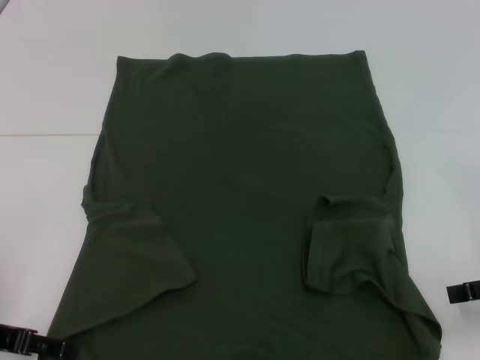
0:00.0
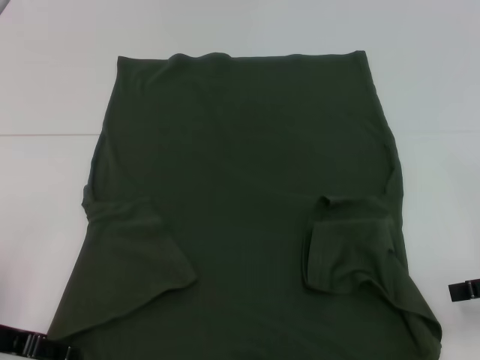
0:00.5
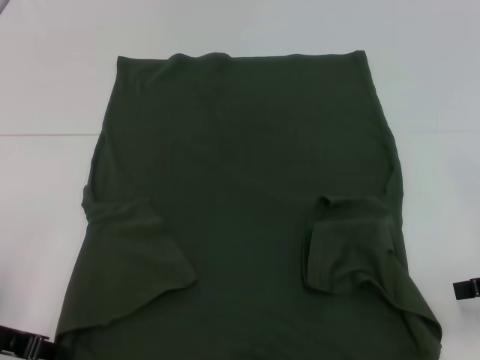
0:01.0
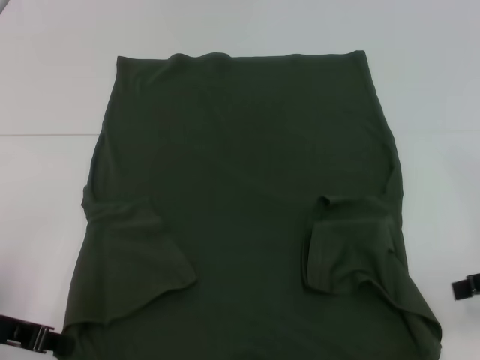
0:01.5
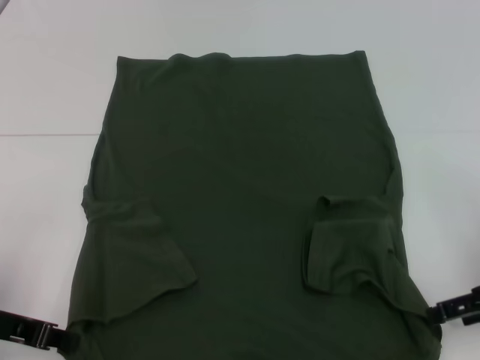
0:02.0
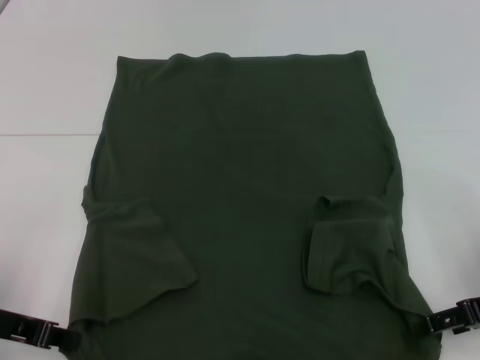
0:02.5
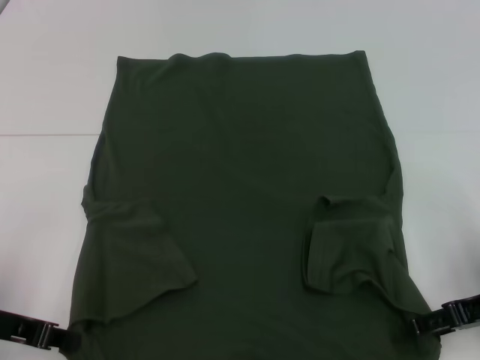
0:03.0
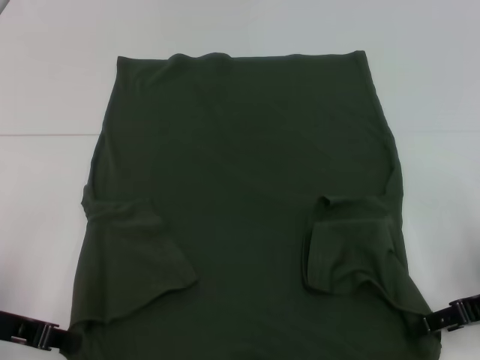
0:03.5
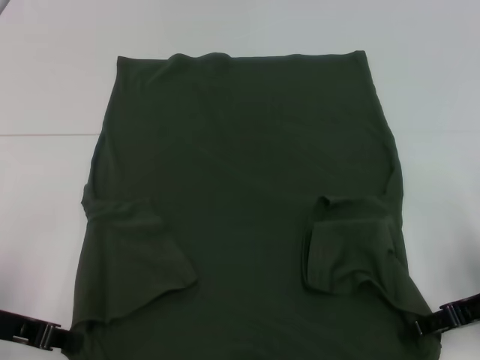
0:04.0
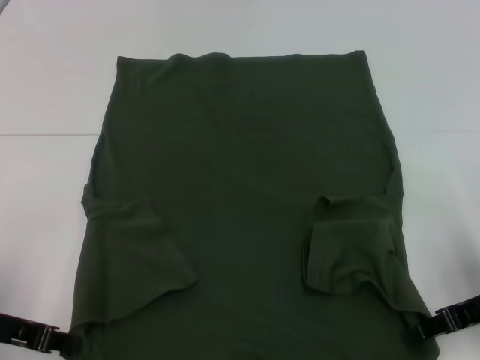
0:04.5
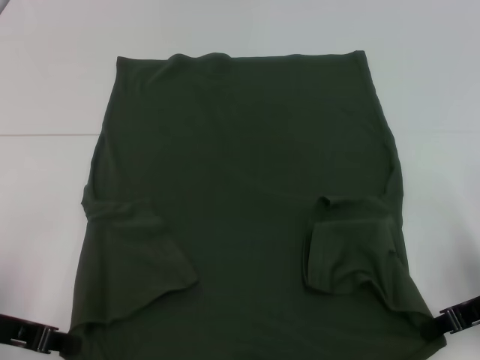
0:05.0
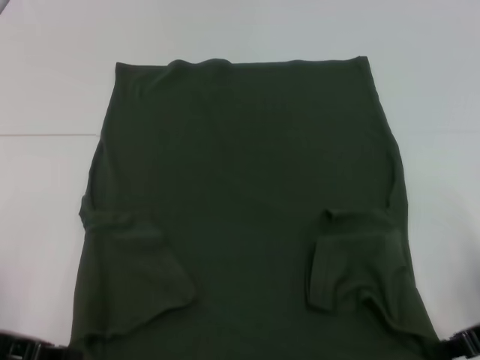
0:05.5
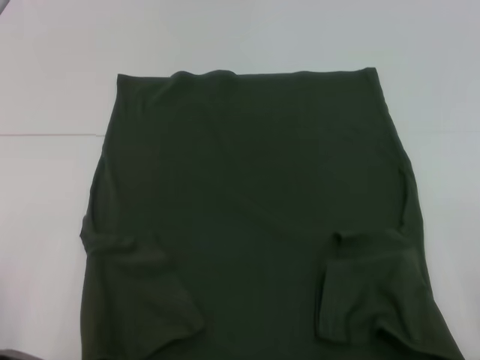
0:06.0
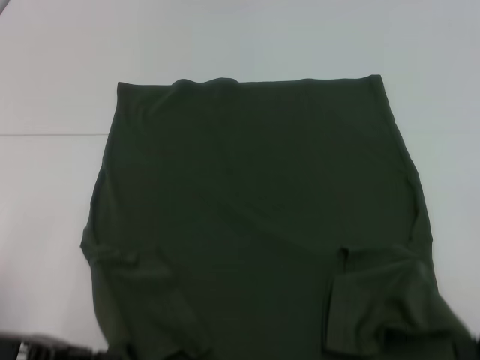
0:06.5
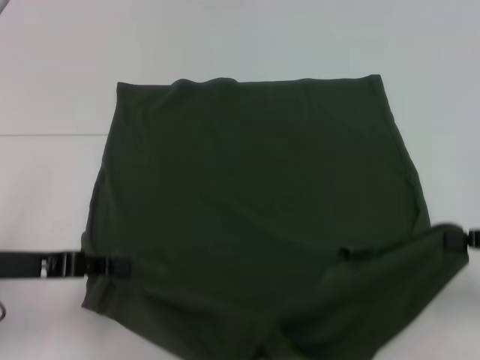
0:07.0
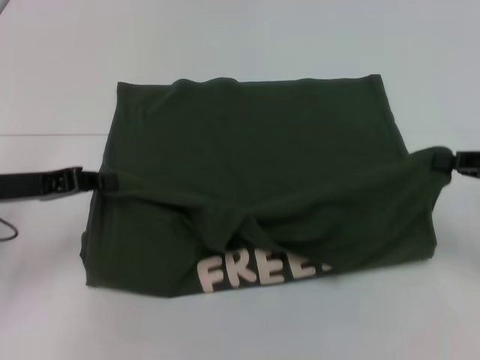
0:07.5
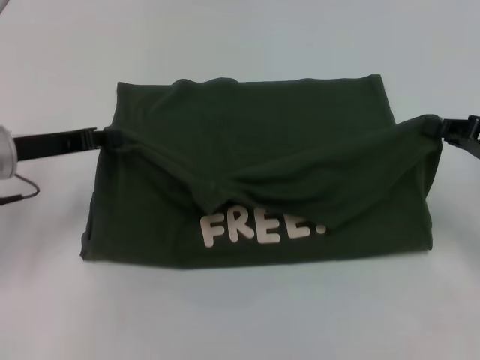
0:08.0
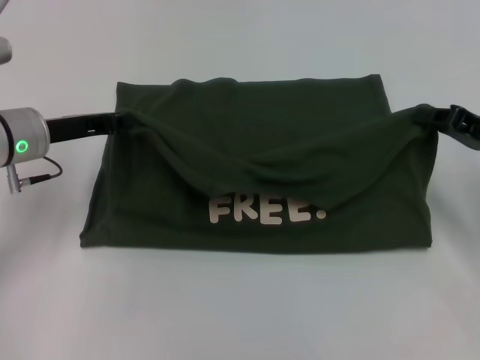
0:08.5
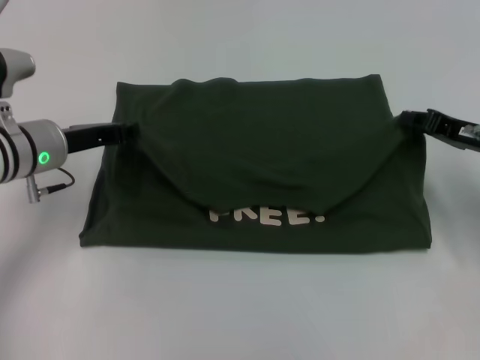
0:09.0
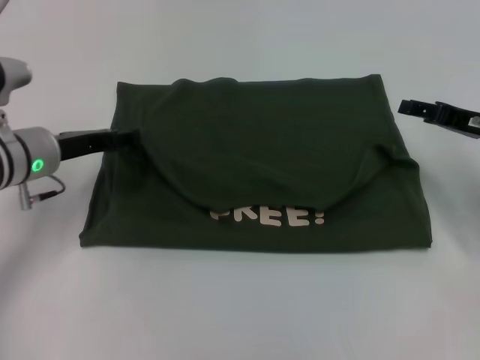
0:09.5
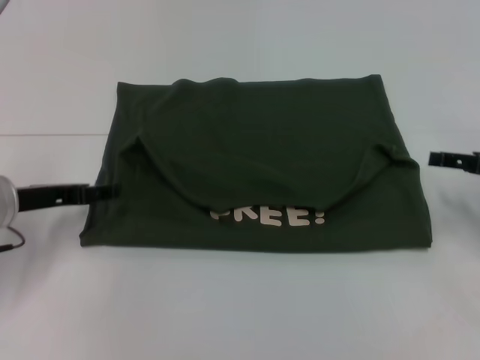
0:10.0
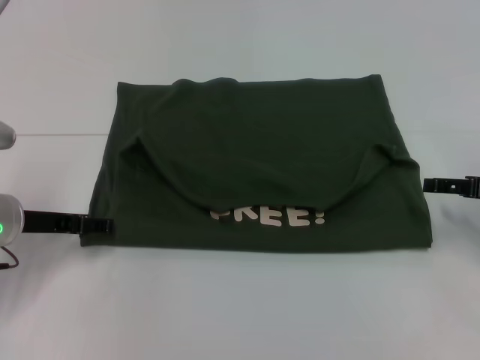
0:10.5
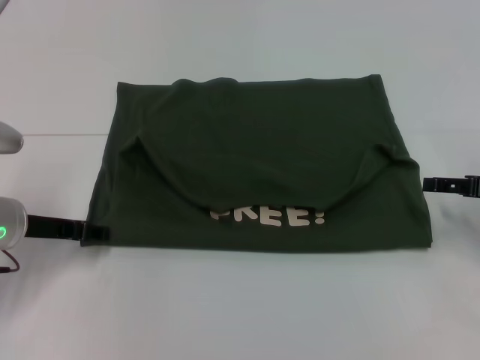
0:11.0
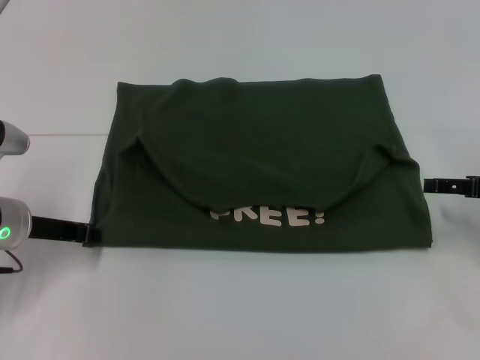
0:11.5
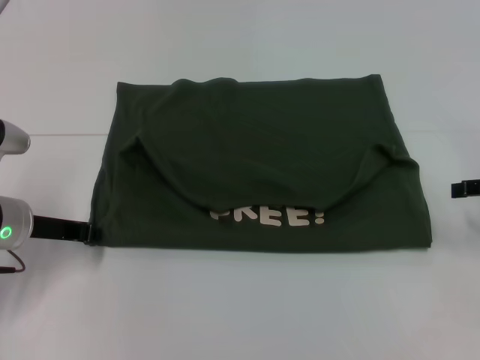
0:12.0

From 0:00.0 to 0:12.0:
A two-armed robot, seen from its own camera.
Step, from 0:01.5 to 0:05.0: Grab the bottom right corner with your right hand.
Step, from 0:05.5 to 0:09.0: Fold the clothes with your left hand.
Step, from 0:05.5 to 0:09.0: Fold the clothes with your right hand.
From 0:00.0 to 0:02.0: The left gripper closes.
From 0:02.0 to 0:04.0: The grippers make only small movements.
From 0:04.0 to 0:06.0: The right gripper travels backward by approximately 5 cm, and closes.
From 0:06.0 to 0:08.0: The two grippers go approximately 15 cm forward.
From 0:08.0 to 0:10.0: The left gripper opens its fingers, while the right gripper opens.
From 0:10.0 to 0:12.0: The left gripper closes.

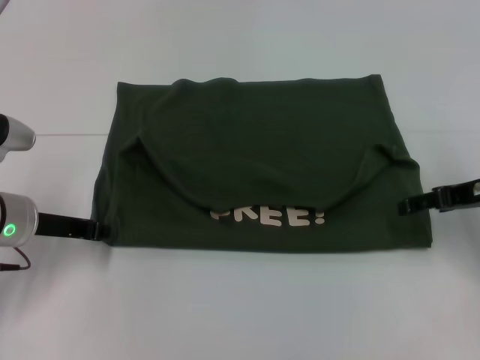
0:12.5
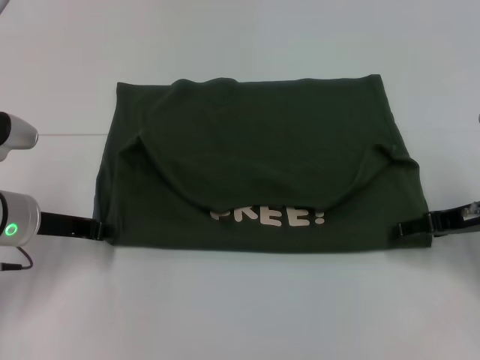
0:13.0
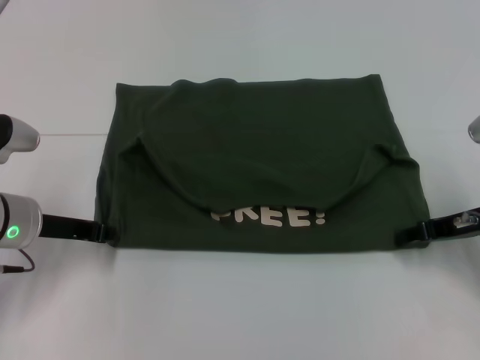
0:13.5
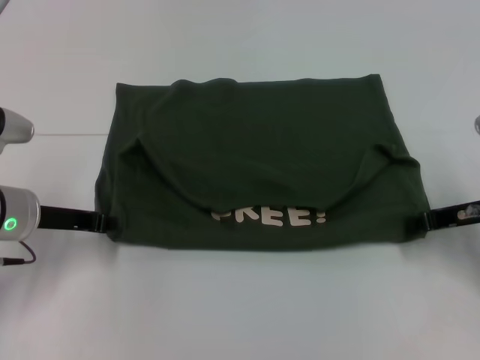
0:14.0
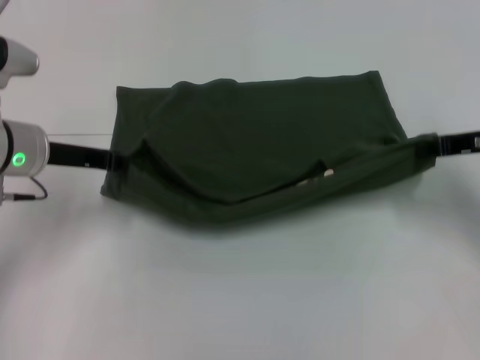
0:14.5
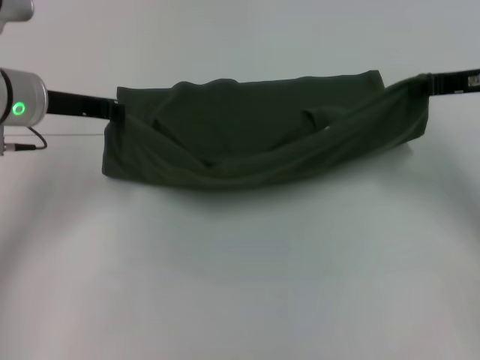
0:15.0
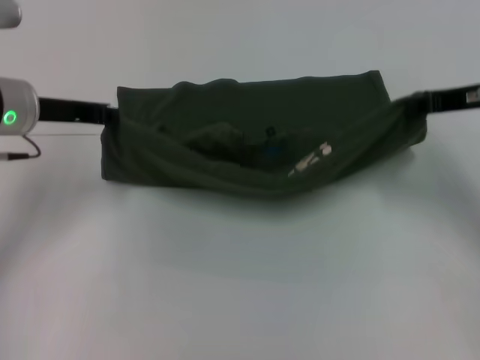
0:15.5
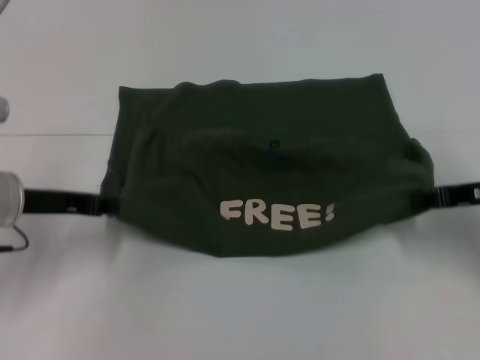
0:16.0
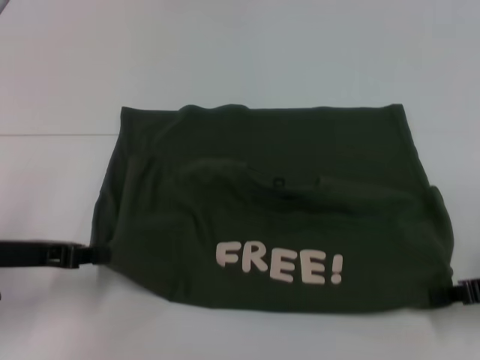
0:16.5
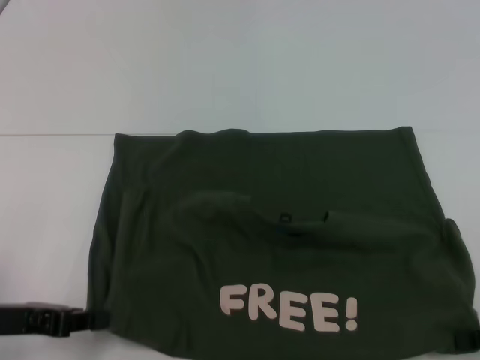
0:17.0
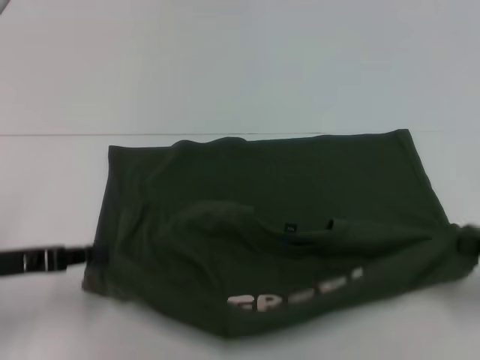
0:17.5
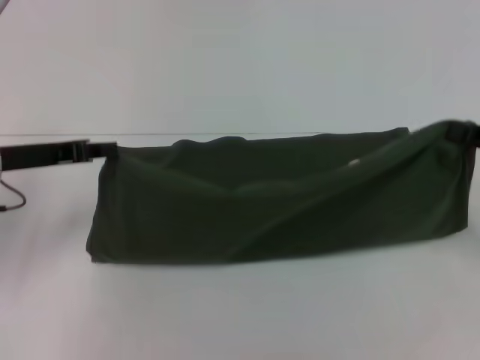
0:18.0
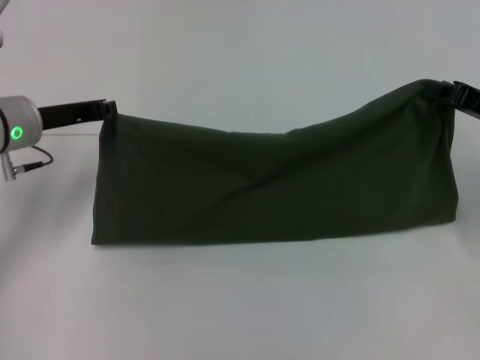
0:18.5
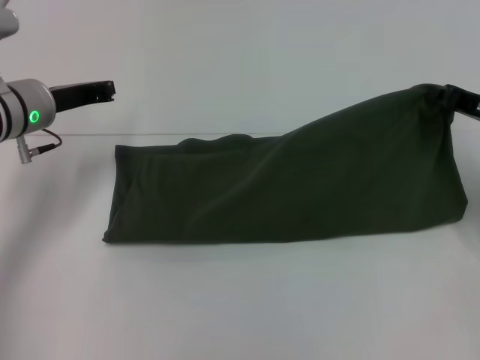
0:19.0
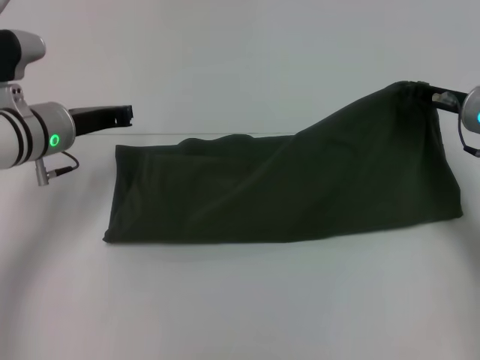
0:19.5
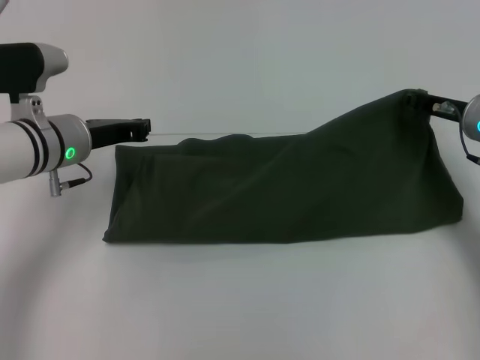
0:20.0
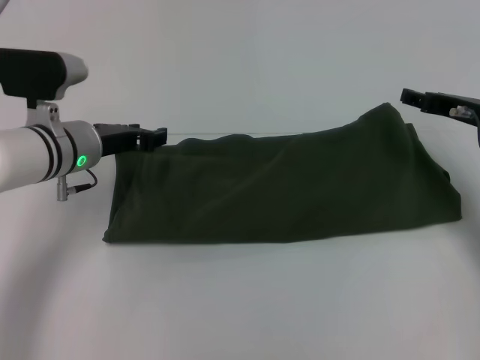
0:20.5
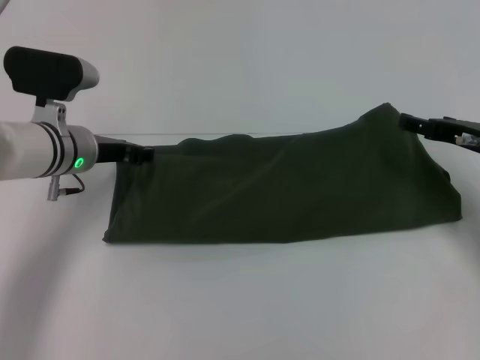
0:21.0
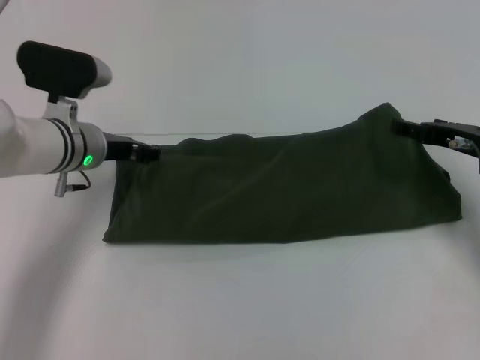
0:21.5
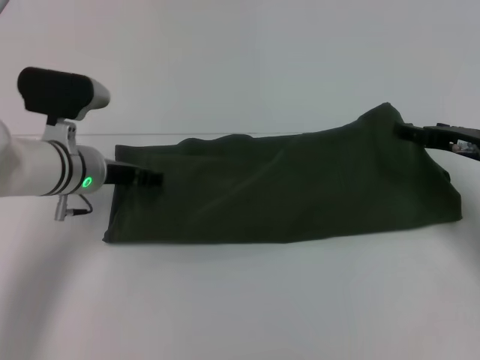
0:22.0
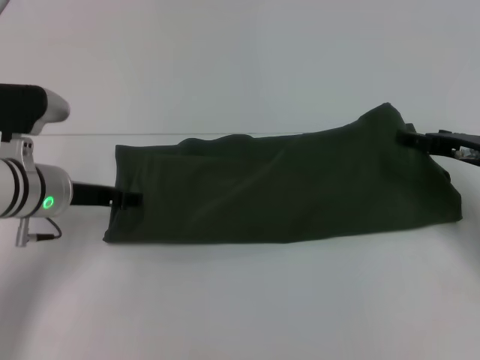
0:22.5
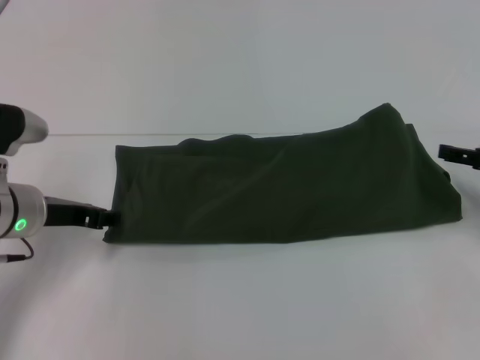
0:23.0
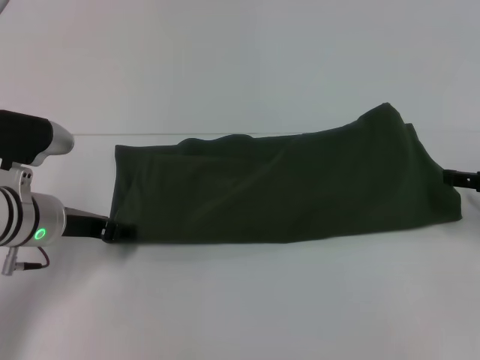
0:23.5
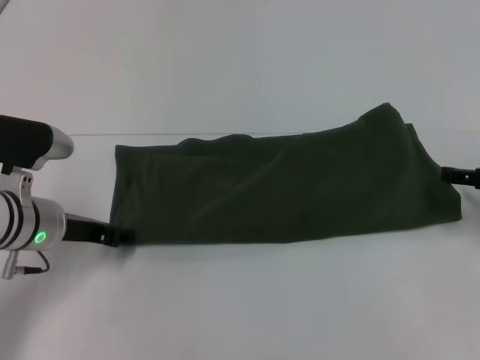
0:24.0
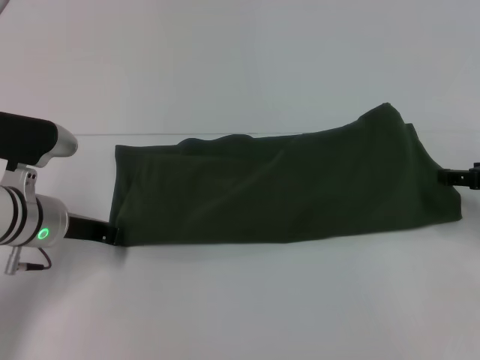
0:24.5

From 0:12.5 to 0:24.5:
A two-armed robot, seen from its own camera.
Step, from 0:12.5 to 0:17.0: Pull the clothes with your left hand.
Step, from 0:12.5 to 0:17.0: Pull the clothes with your right hand.
Step, from 0:17.5 to 0:18.5: Fold the clothes with your left hand.
Step, from 0:19.0 to 0:20.0: Fold the clothes with your right hand.
From 0:12.5 to 0:14.5: The right gripper closes up, while the left gripper goes about 5 cm upward.
From 0:14.5 to 0:16.5: The right gripper is displaced backward and downward by about 10 cm, while the left gripper travels backward and to the left by approximately 10 cm.
From 0:16.5 to 0:18.5: Both grippers travel together forward, approximately 10 cm.
From 0:18.5 to 0:20.5: The right gripper shifts by some 5 cm, and opens, while the left gripper is displaced to the right by approximately 5 cm.
From 0:20.5 to 0:22.5: The right gripper opens its fingers.
From 0:22.5 to 0:24.5: The left gripper closes its fingers. Meanwhile the right gripper ends up roughly 5 cm from where it was.

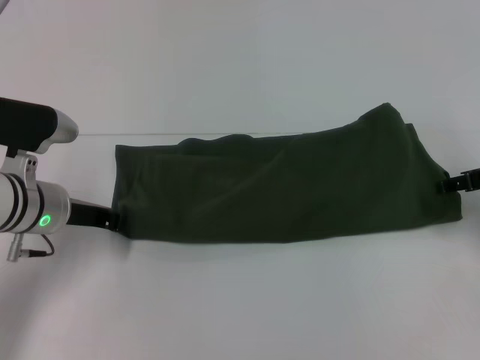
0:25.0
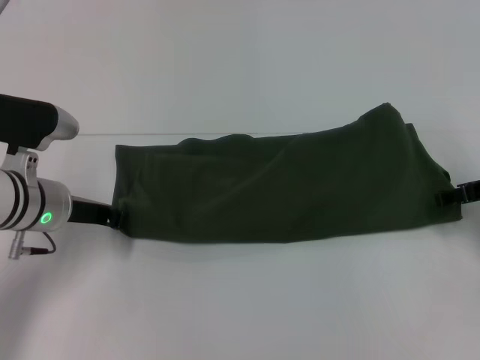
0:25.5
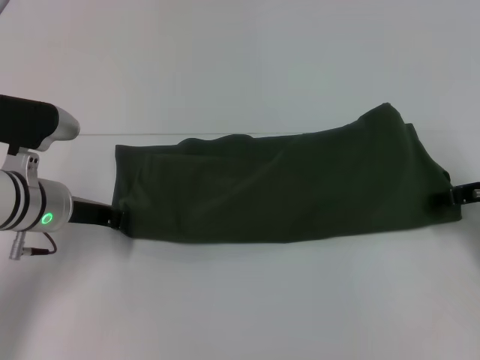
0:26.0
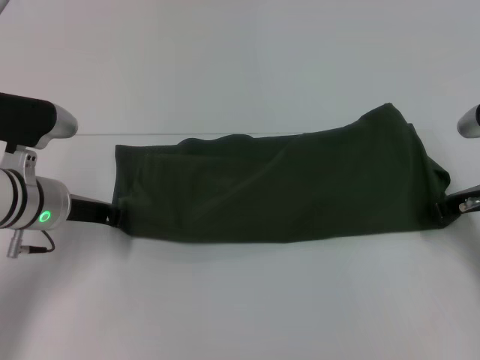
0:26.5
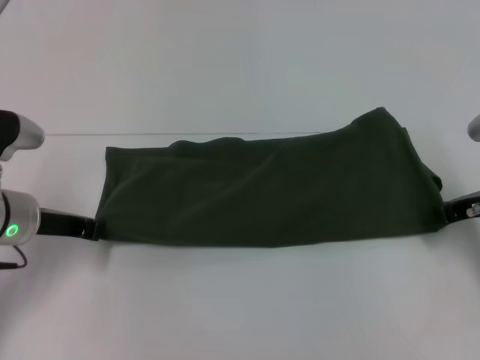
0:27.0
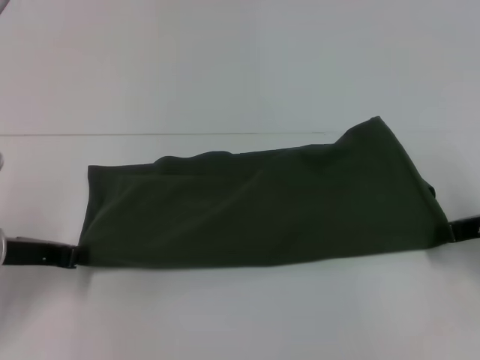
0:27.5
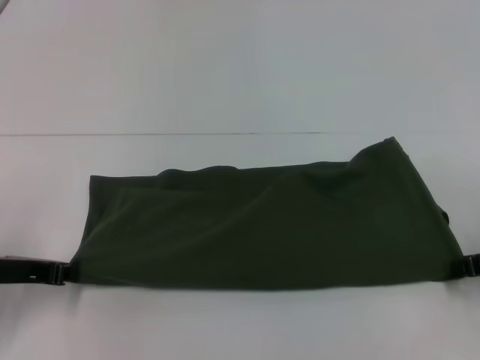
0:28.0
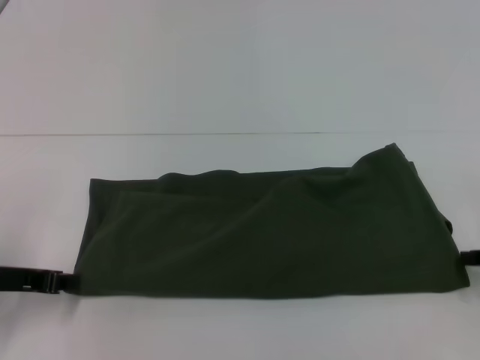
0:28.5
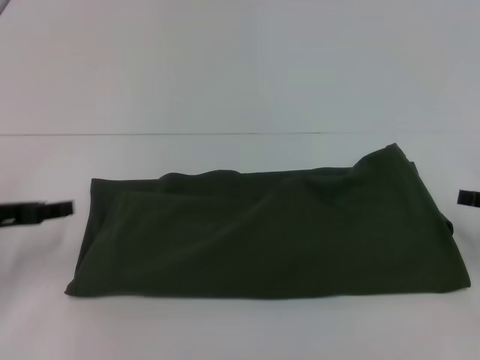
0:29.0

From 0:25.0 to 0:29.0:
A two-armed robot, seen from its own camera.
Step, from 0:25.0 to 0:28.5: Pull the clothes with your left hand.
Step, from 0:25.0 to 0:28.5: Pull the clothes with your right hand.
From 0:25.0 to 0:27.0: The right gripper shifts by roughly 5 cm, and closes its fingers.
From 0:27.0 to 0:29.0: The left gripper travels to the left by some 5 cm, and opens up; the right gripper is displaced backward and to the right by approximately 10 cm, and opens up.
